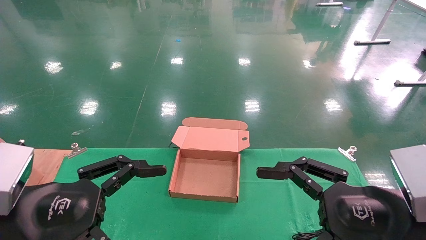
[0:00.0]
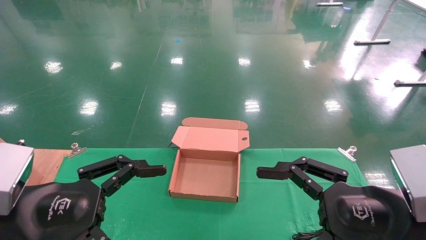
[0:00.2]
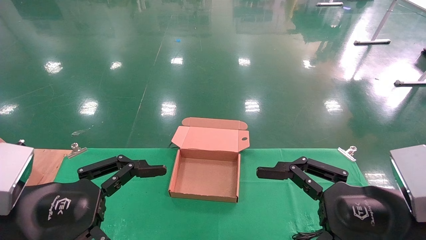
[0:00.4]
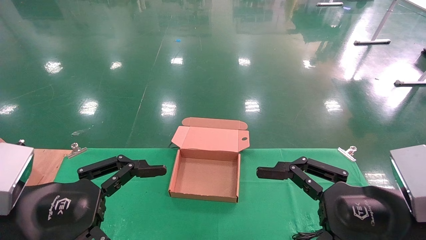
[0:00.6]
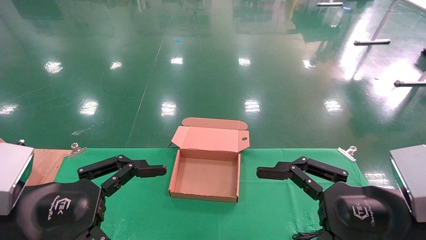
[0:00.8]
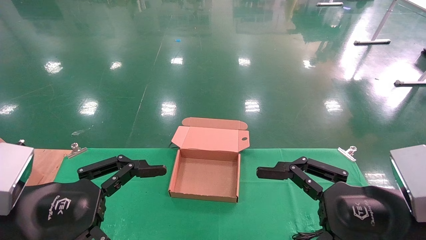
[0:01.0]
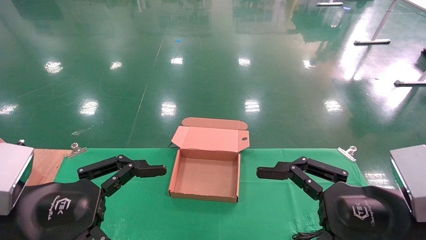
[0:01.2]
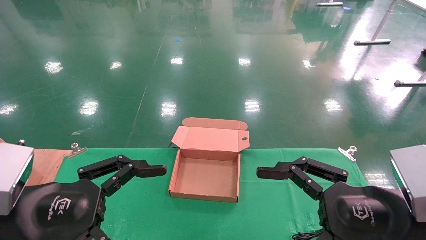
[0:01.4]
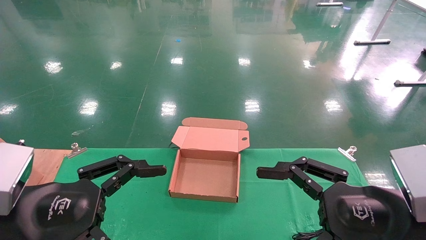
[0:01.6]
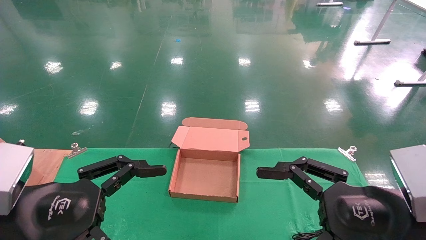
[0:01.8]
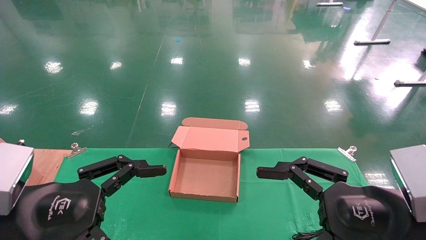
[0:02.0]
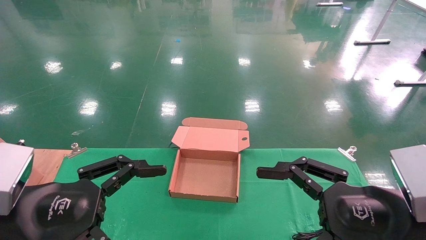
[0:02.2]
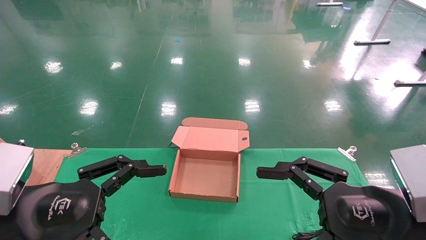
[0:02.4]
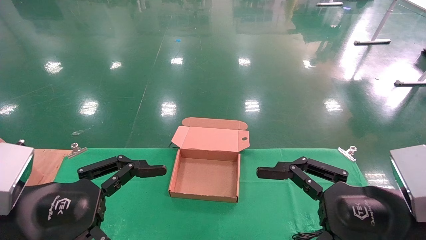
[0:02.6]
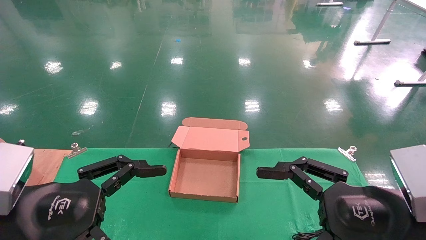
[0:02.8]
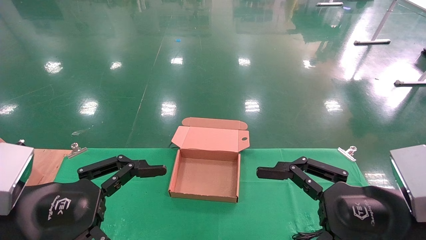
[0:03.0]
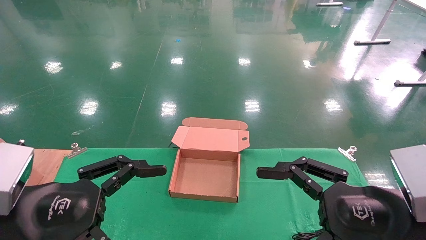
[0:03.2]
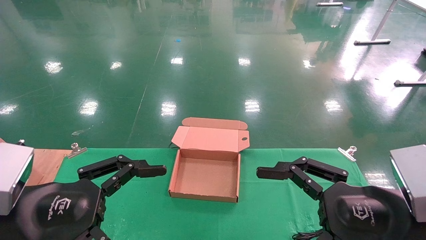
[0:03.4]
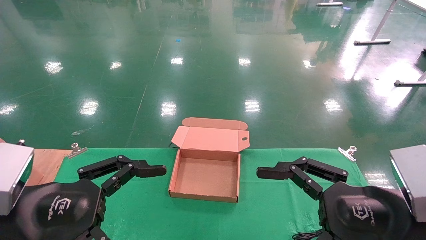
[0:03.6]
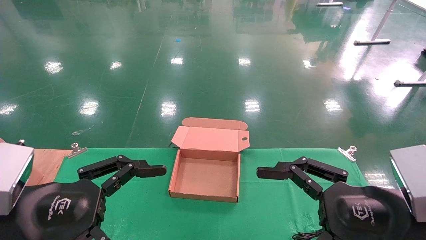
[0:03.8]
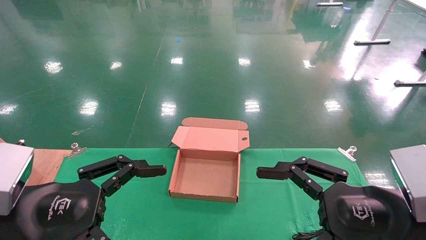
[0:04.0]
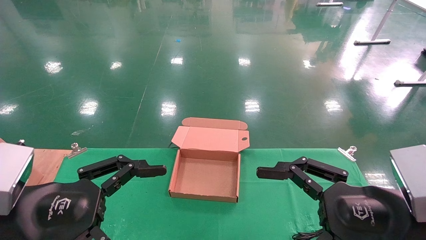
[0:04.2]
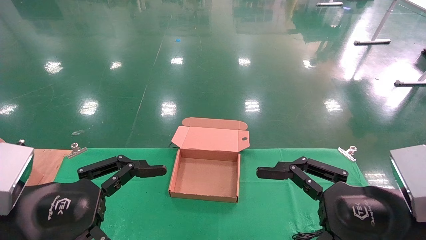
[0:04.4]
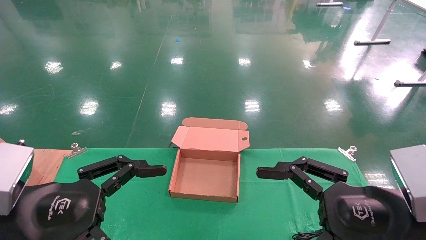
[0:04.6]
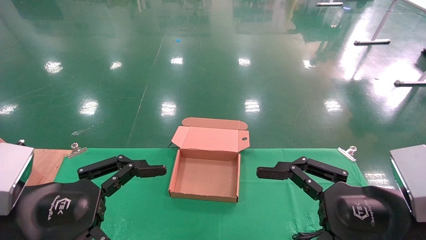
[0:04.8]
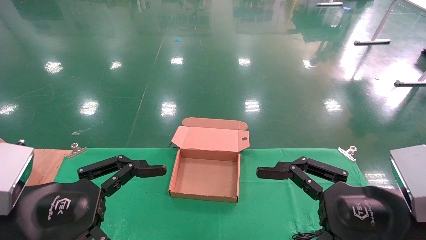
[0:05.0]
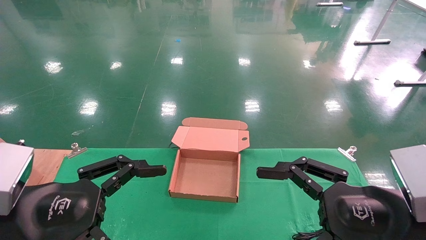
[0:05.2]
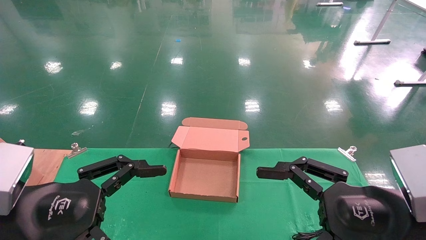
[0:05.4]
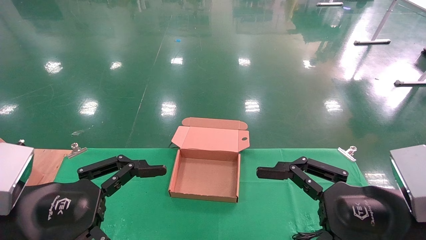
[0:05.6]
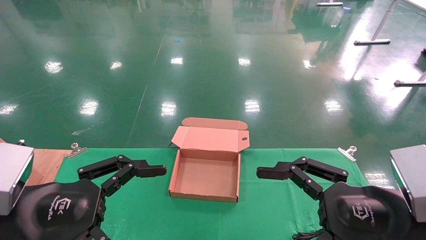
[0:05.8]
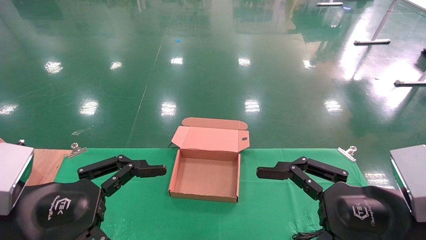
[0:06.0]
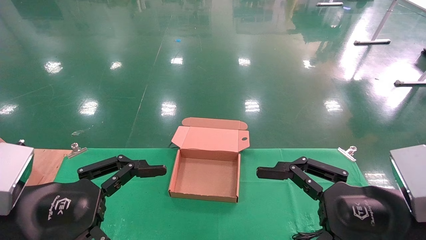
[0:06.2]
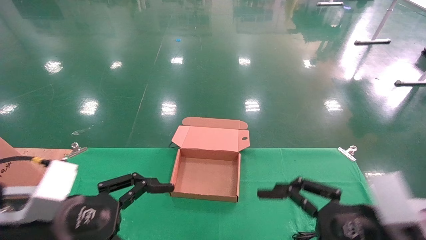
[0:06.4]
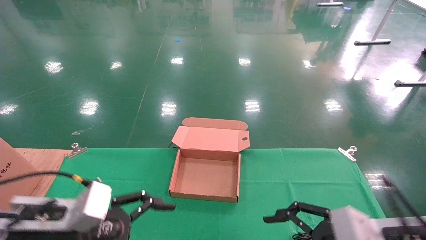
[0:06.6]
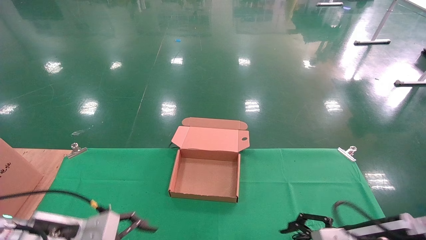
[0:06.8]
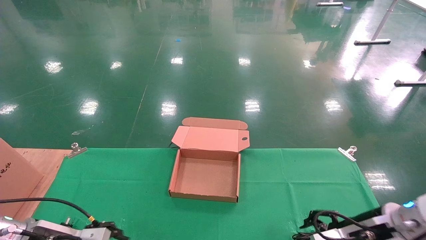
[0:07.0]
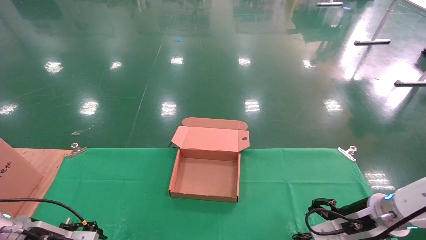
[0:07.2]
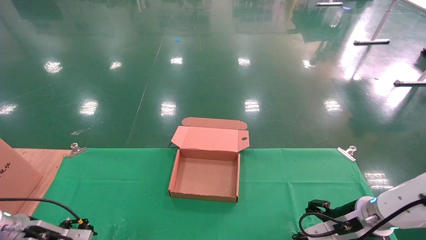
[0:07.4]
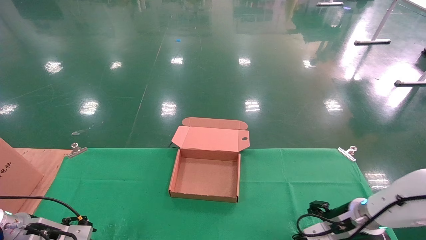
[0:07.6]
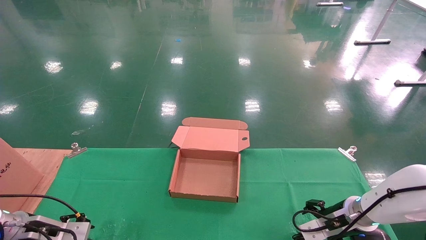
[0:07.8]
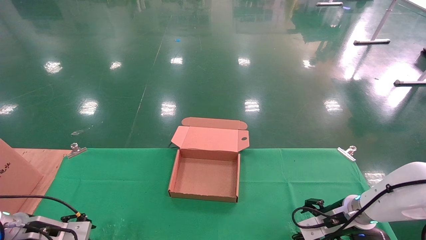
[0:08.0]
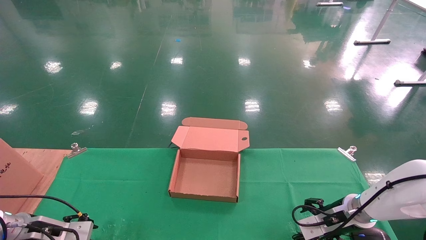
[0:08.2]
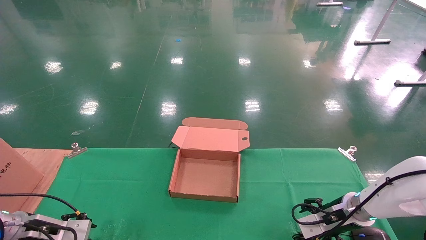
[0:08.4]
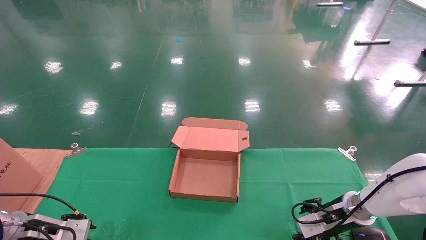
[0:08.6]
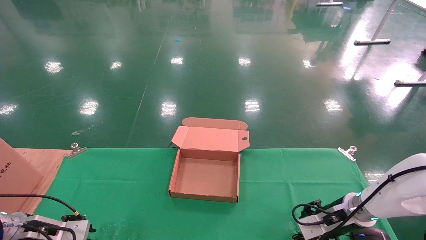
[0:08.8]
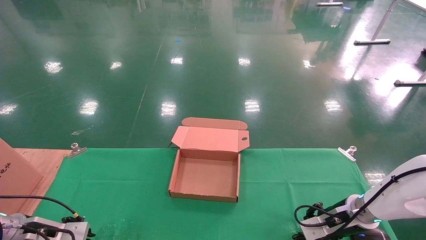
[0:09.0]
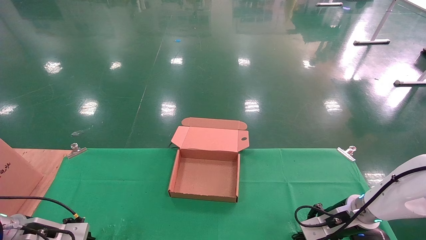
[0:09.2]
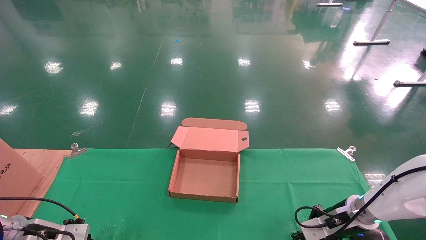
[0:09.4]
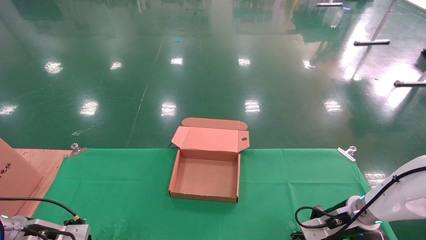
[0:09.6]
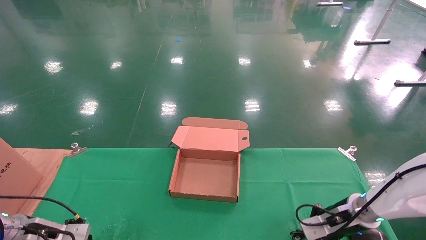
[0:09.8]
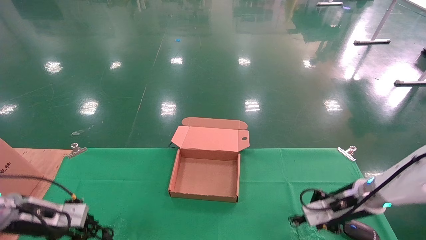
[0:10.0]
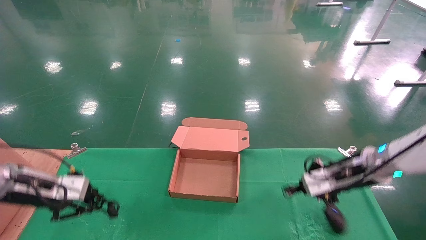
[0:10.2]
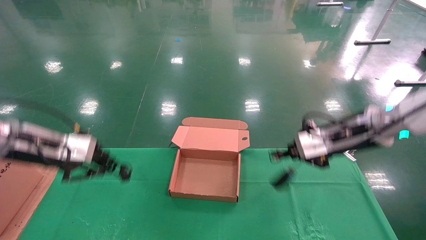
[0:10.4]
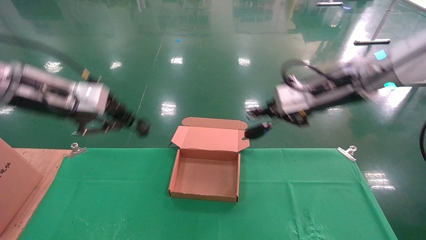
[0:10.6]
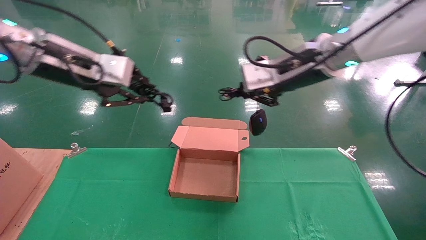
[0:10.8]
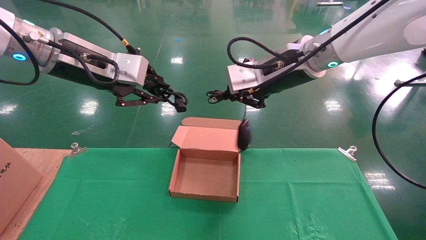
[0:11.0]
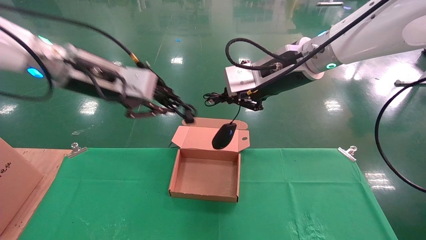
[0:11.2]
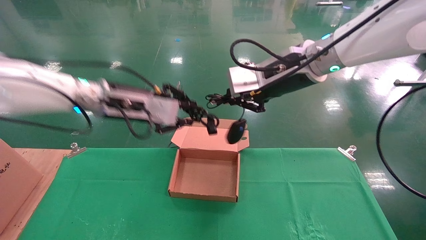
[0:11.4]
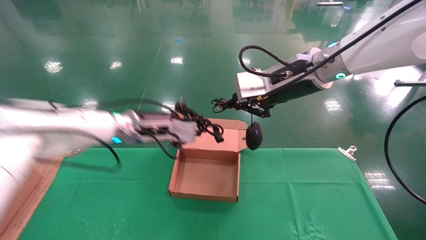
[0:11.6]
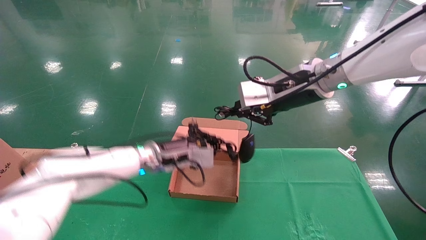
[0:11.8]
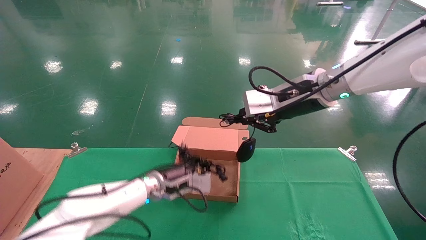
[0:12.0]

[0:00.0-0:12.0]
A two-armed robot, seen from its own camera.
Step, 0:05.6 to 0:11.2: Place the mouse and power cord into the box.
0:00.0 to 0:06.0: Both grippers stay about where they are.
0:06.0 to 0:07.6: The right gripper heads forward and downward, covering some 25 cm; the left gripper heads forward, downward and to the left, covering about 25 cm.
0:07.6 to 0:09.0: The left gripper closes up; the right gripper closes.
0:09.0 to 0:10.4: The two grippers go approximately 25 cm upward. The right gripper closes its fingers; the left gripper closes up.
0:10.4 to 0:12.0: The right gripper is displaced to the left and upward by some 10 cm. The left gripper heads to the right, downward and forward, covering approximately 30 cm.

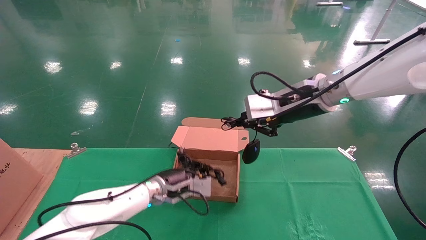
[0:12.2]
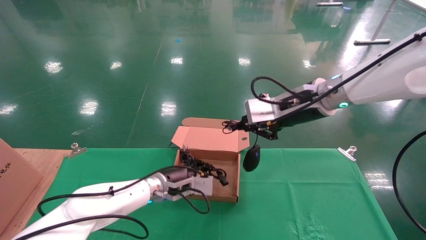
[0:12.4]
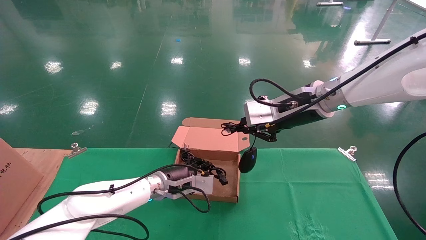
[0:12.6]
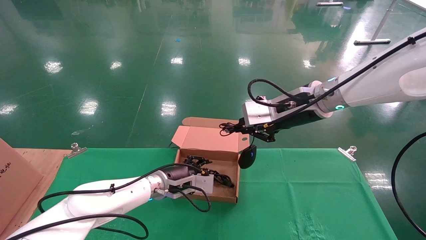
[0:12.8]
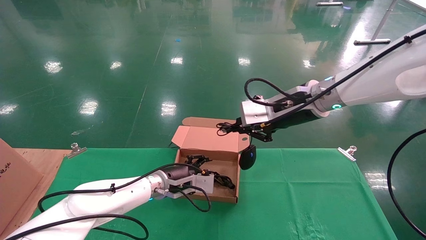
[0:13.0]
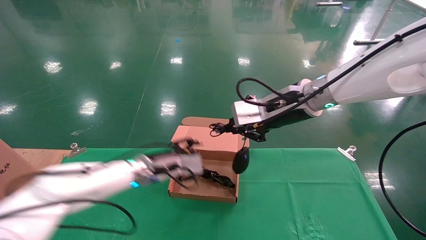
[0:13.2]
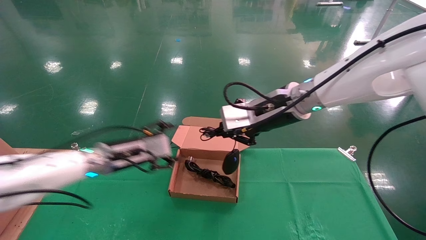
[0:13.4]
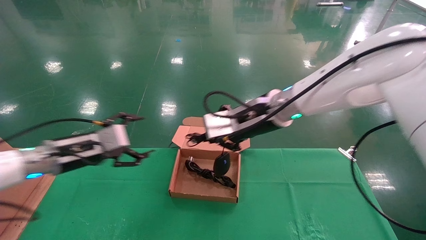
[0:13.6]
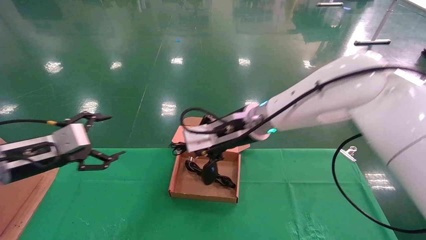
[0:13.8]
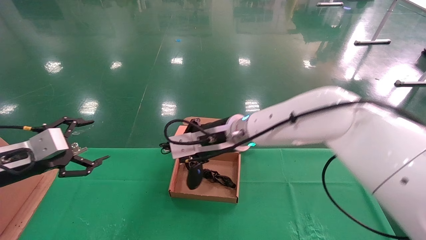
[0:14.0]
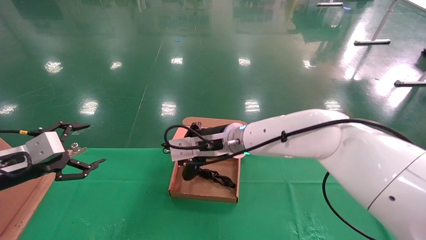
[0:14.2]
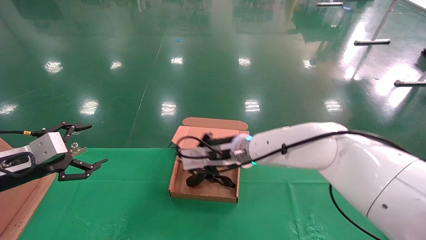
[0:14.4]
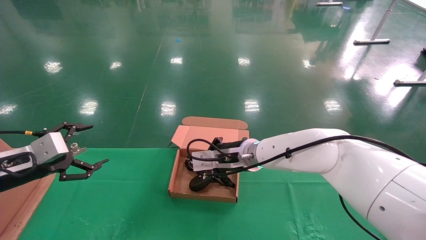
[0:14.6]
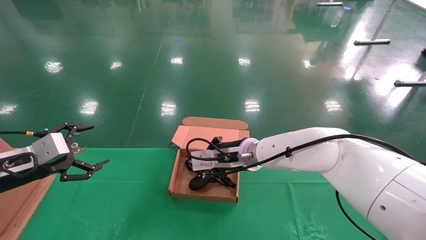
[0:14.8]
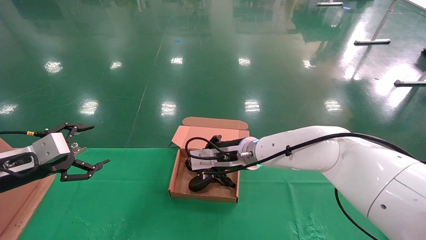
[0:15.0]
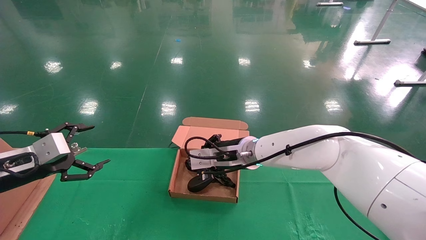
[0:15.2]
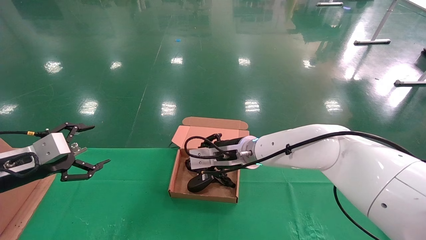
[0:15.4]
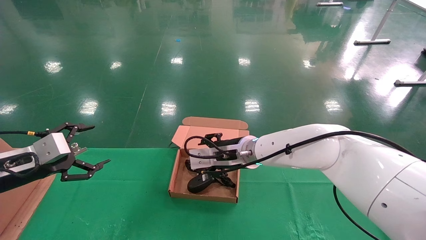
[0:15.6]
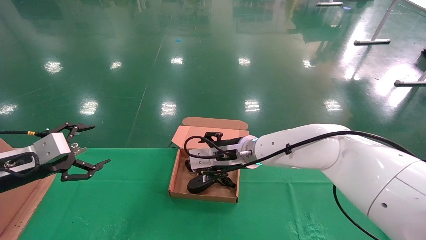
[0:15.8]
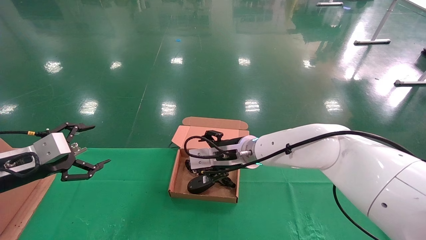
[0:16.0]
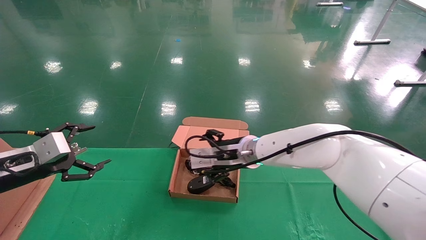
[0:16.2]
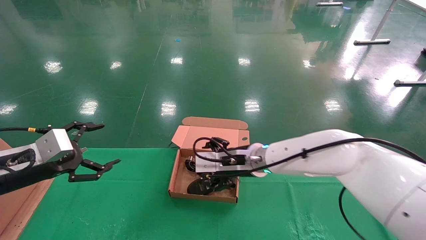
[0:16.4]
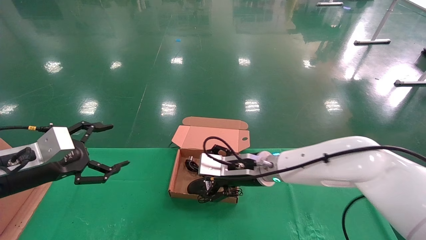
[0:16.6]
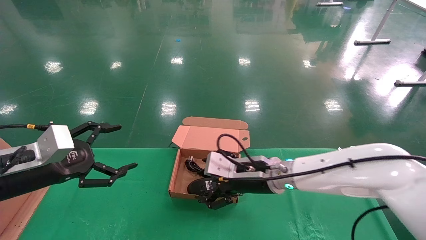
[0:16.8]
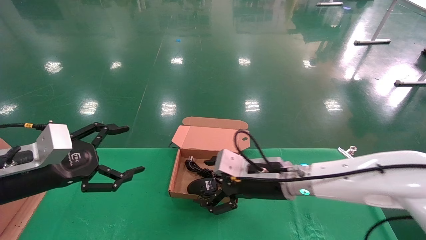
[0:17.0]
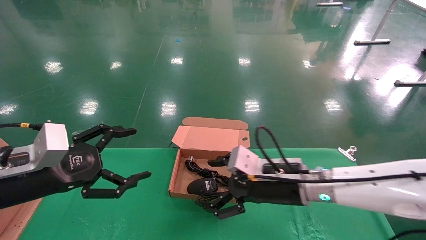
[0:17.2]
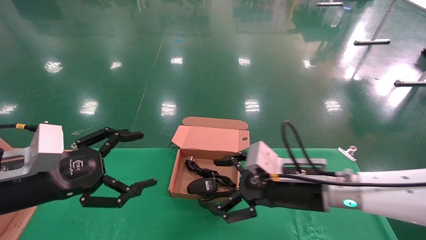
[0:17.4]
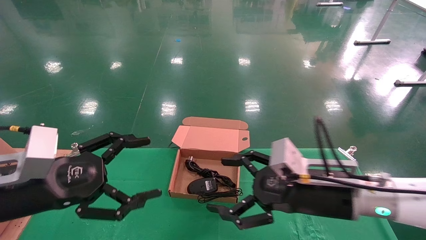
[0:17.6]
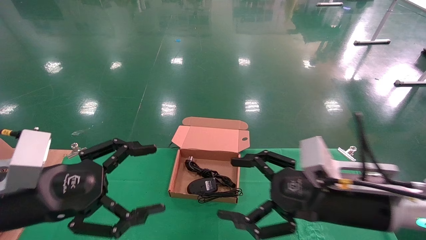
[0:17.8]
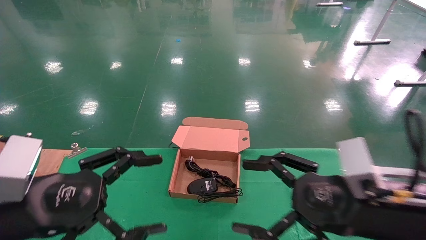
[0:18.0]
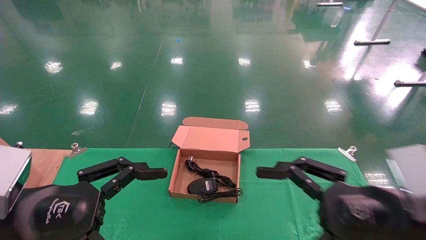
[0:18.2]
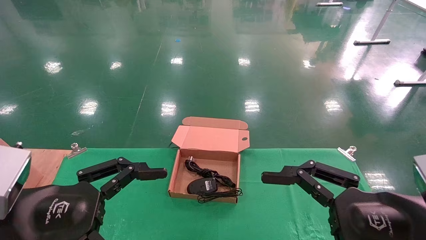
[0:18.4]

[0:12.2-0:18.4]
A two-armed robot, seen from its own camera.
0:12.2 to 0:13.8: The right gripper is displaced to the left and downward by approximately 15 cm. Meanwhile the left gripper travels to the left, backward and upward by approximately 30 cm, and opens.
0:13.8 to 0:15.4: The right gripper travels downward by roughly 10 cm.
0:15.4 to 0:16.8: The right gripper shifts some 5 cm backward and to the right, and opens its fingers; the left gripper travels to the right by roughly 5 cm.
0:16.8 to 0:18.4: The right gripper is displaced backward and to the right by roughly 25 cm; the left gripper goes about 15 cm backward and to the right.
